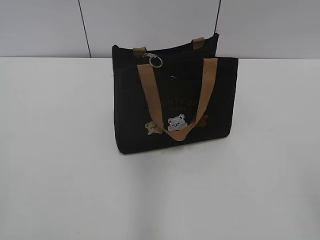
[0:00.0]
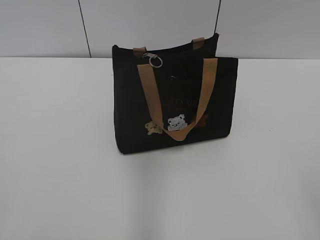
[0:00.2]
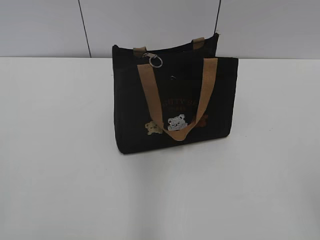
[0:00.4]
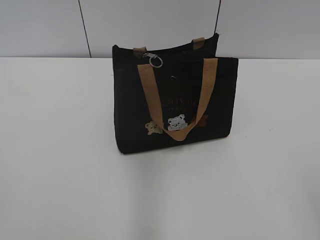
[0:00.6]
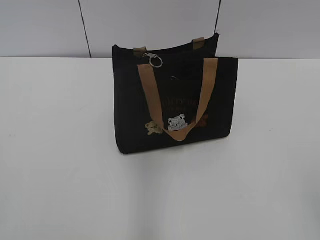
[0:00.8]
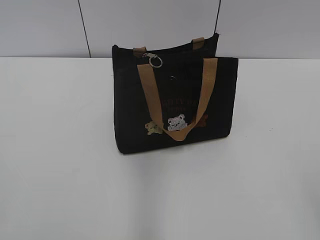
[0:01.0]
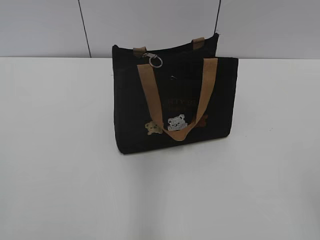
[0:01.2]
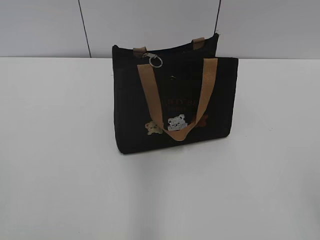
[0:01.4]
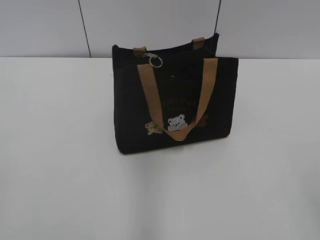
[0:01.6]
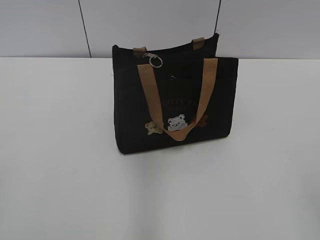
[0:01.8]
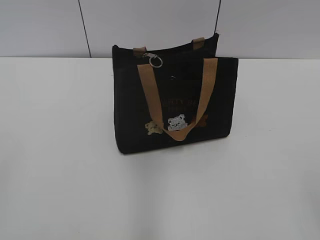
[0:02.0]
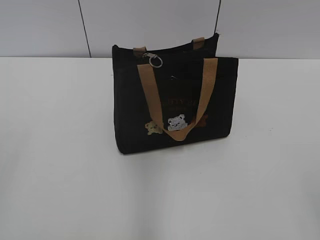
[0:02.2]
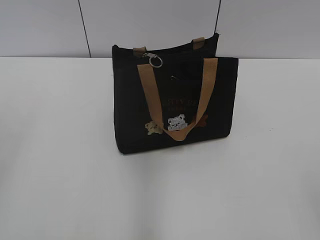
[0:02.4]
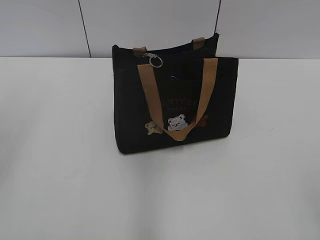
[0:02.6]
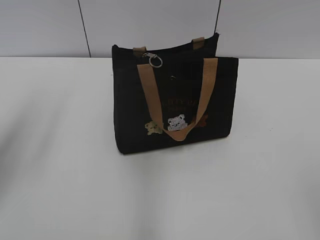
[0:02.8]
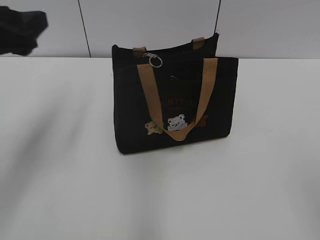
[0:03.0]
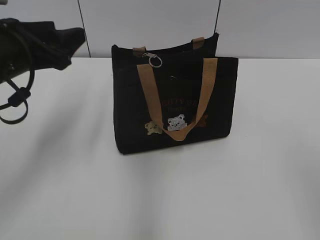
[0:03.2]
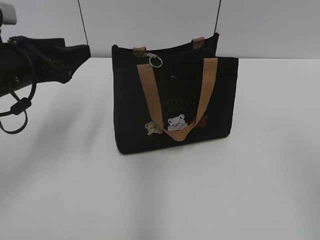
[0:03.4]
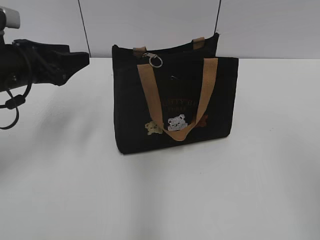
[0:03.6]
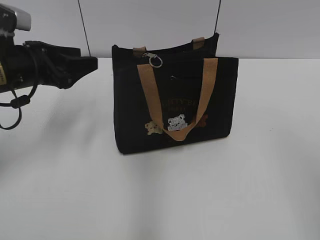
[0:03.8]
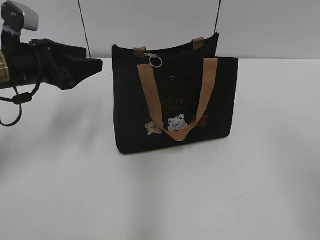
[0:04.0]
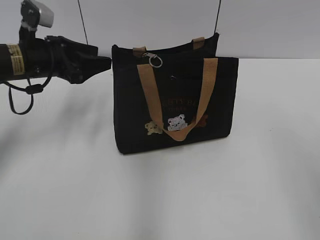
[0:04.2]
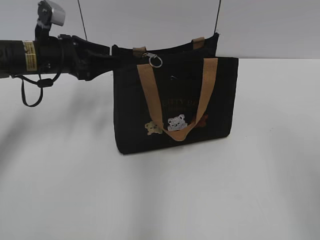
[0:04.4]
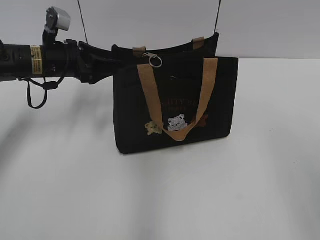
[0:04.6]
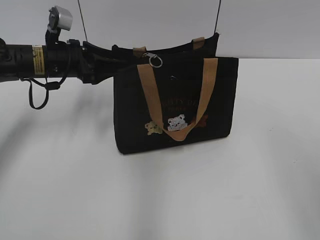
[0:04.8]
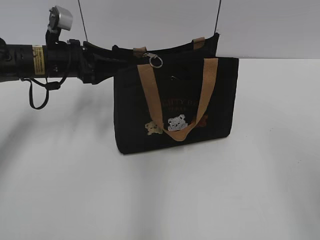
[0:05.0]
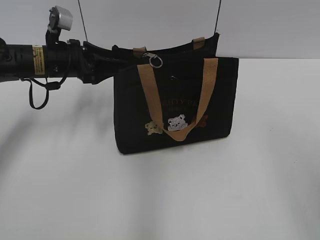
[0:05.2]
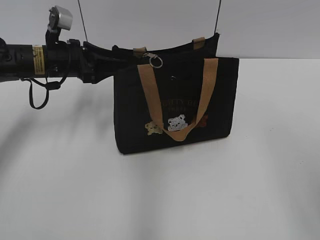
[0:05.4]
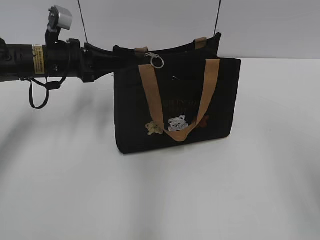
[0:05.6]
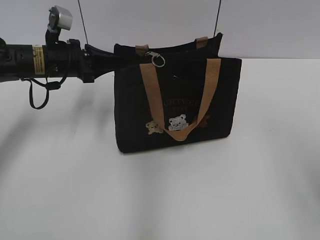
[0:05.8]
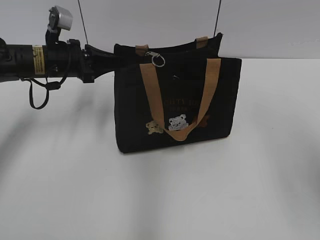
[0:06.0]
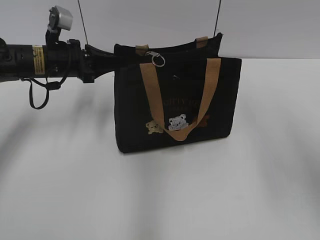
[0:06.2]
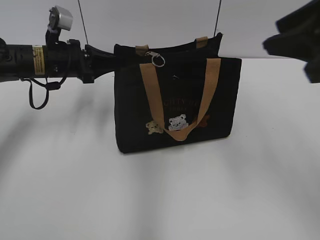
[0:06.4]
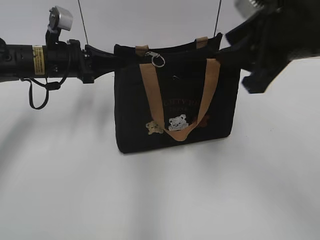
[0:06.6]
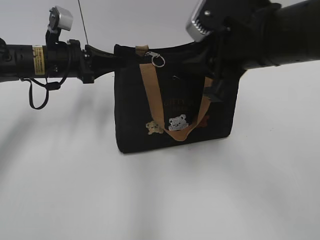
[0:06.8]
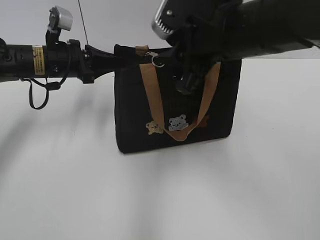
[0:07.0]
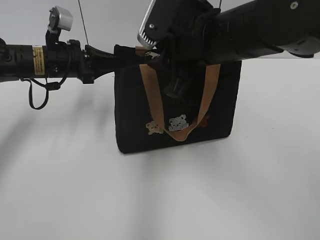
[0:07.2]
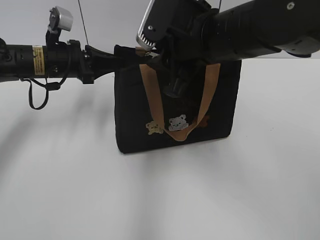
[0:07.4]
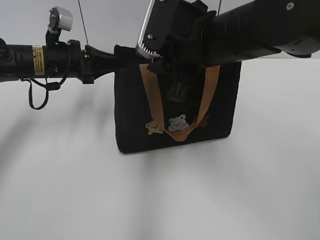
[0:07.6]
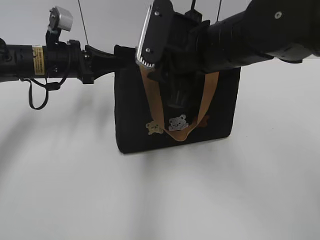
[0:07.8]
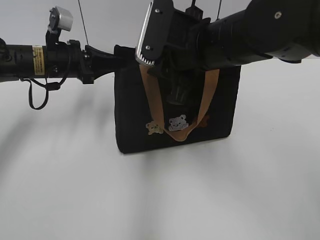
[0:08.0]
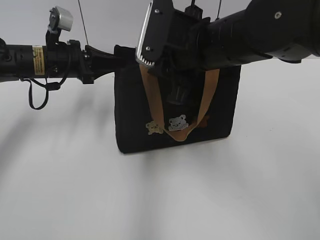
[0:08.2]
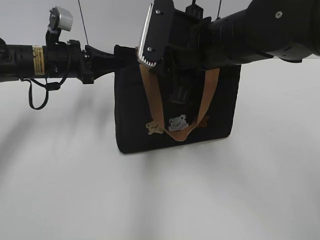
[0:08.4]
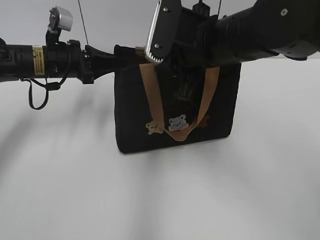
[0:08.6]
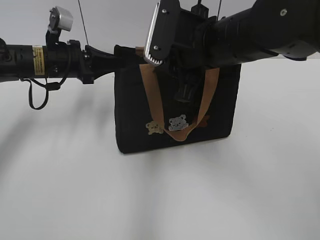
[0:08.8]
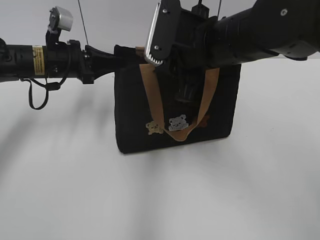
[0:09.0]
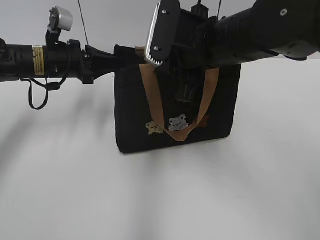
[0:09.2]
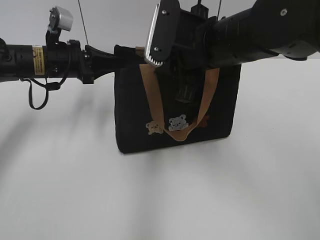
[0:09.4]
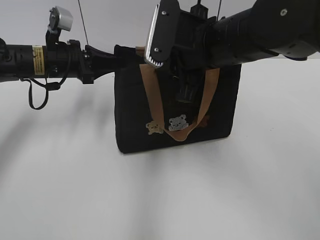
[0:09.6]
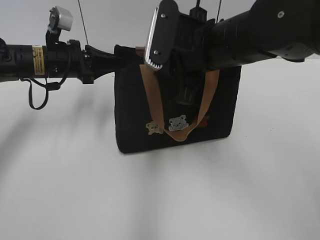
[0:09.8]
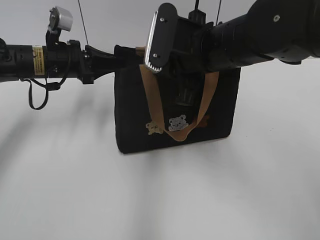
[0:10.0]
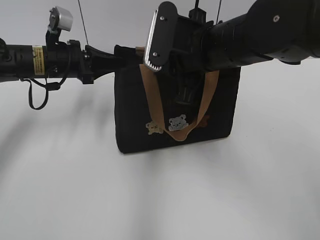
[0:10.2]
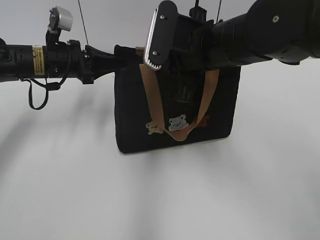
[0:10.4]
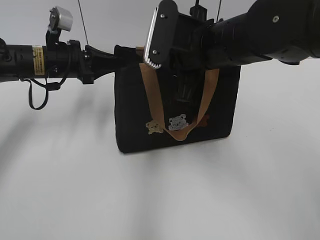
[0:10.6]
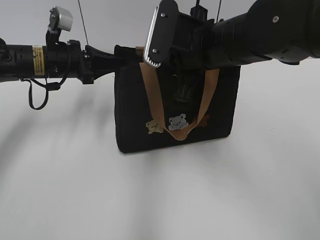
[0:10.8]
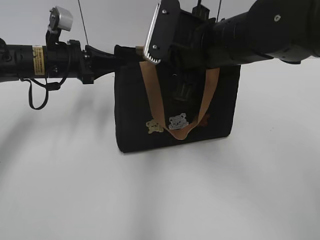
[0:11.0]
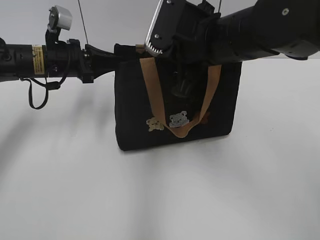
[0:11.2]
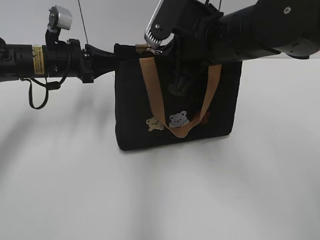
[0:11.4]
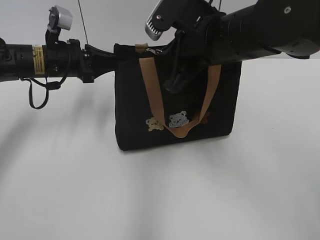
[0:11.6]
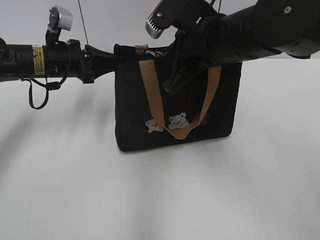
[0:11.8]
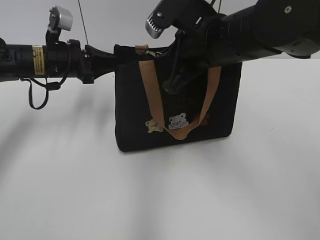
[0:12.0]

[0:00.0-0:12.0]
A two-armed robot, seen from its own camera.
0:01.6 to 0:03.0: The left gripper goes some 25 cm forward.
0:03.0 to 0:04.4: The left gripper is displaced forward and downward by about 15 cm.
0:04.4 to 0:06.0: The left gripper closes up. Meanwhile the right gripper shifts approximately 5 cm forward.
0:06.0 to 0:07.6: The right gripper travels to the left, forward and downward by approximately 25 cm.
0:07.6 to 0:09.0: The grippers make only small movements.
0:09.0 to 0:10.4: Both grippers stay about where they are.
0:10.4 to 0:12.0: The right gripper closes its fingers.

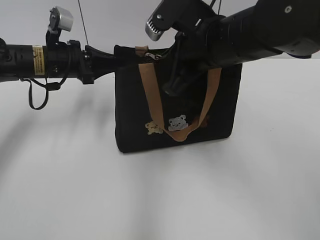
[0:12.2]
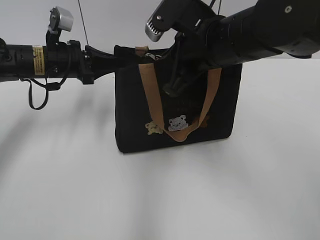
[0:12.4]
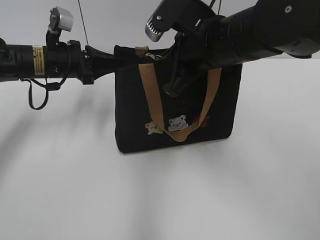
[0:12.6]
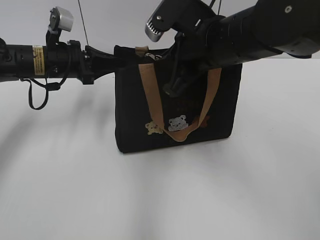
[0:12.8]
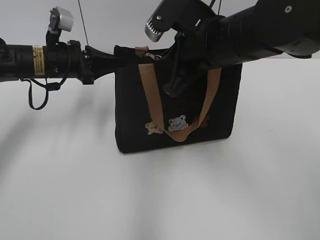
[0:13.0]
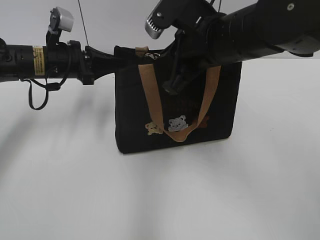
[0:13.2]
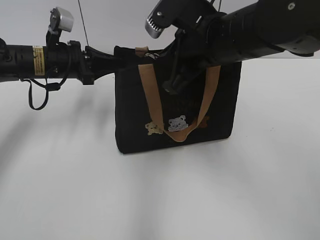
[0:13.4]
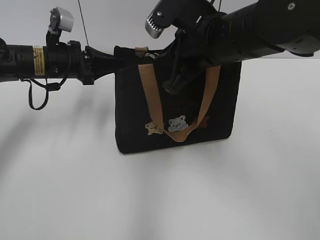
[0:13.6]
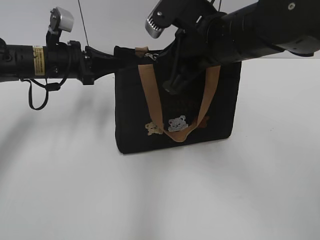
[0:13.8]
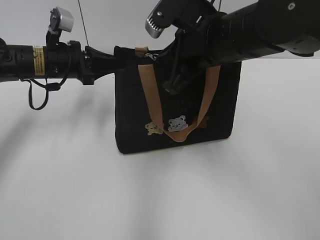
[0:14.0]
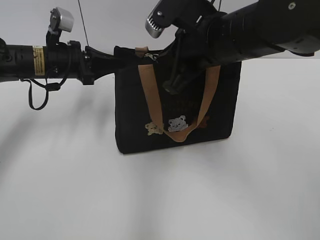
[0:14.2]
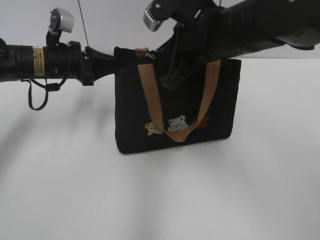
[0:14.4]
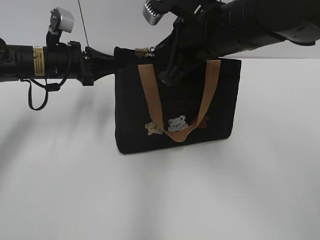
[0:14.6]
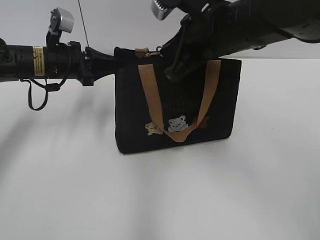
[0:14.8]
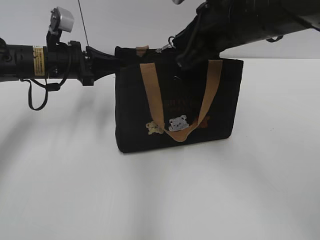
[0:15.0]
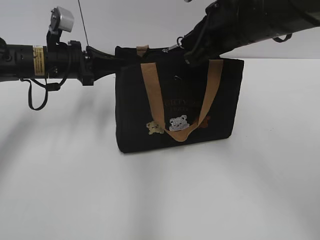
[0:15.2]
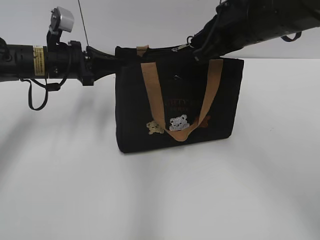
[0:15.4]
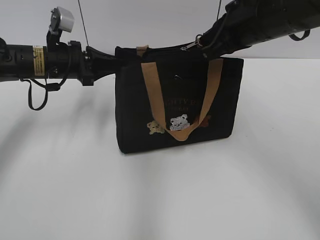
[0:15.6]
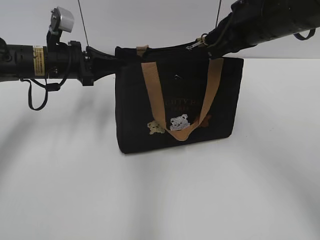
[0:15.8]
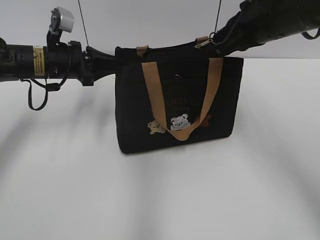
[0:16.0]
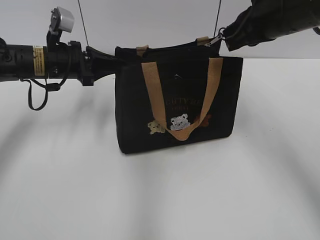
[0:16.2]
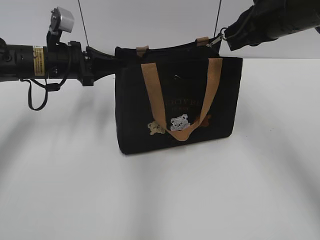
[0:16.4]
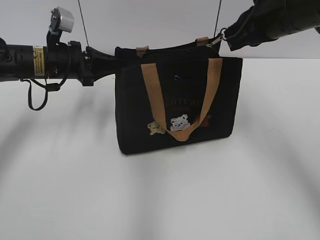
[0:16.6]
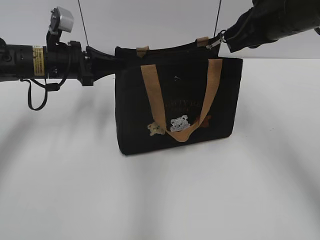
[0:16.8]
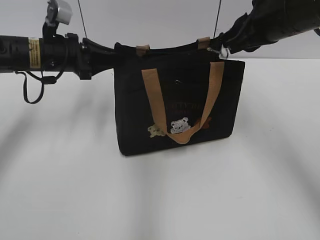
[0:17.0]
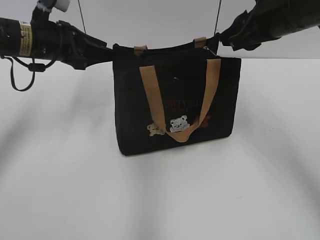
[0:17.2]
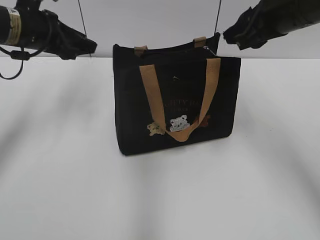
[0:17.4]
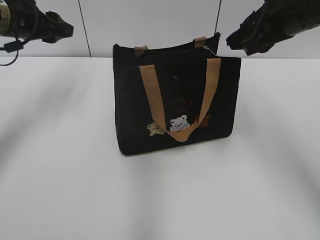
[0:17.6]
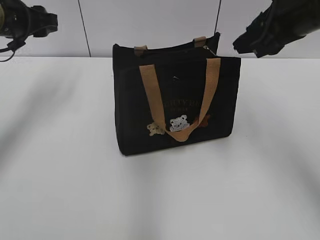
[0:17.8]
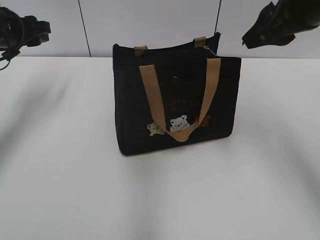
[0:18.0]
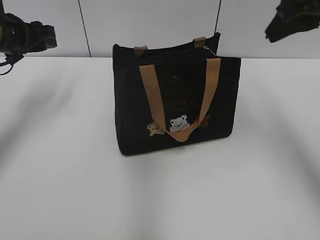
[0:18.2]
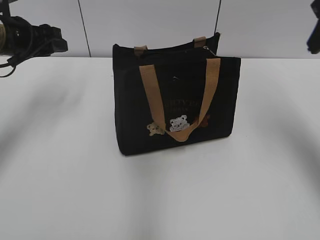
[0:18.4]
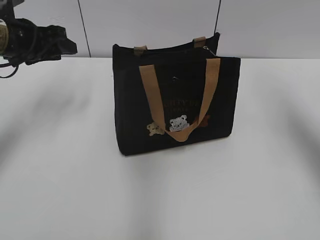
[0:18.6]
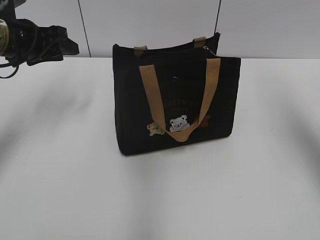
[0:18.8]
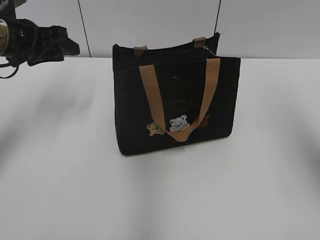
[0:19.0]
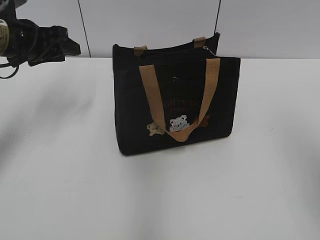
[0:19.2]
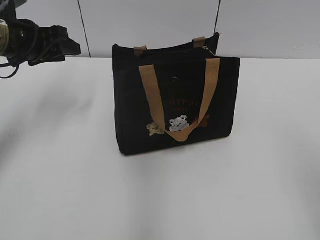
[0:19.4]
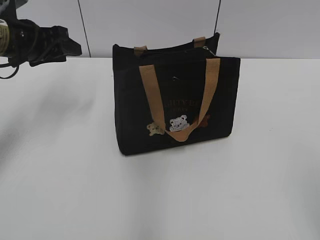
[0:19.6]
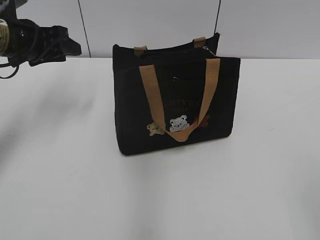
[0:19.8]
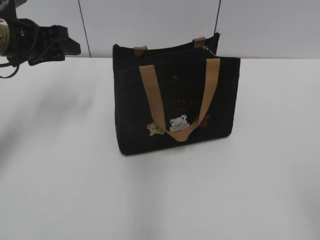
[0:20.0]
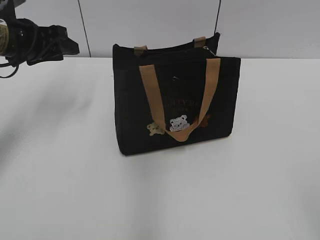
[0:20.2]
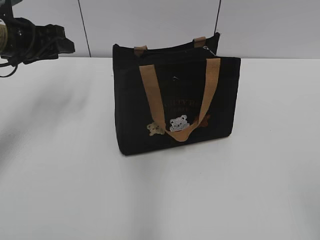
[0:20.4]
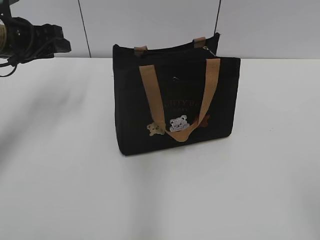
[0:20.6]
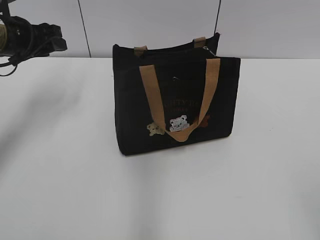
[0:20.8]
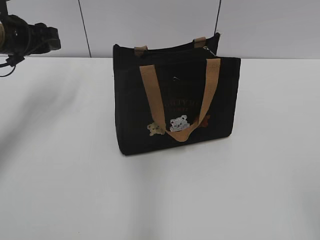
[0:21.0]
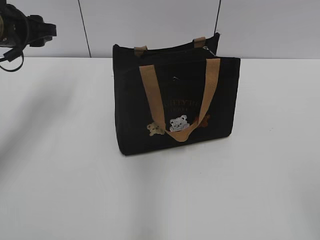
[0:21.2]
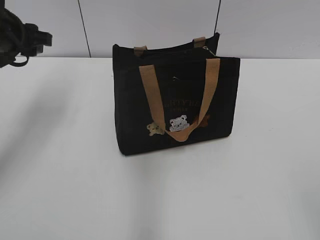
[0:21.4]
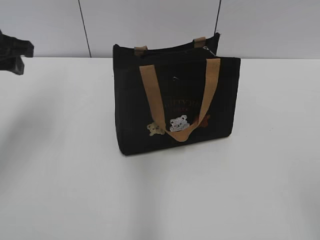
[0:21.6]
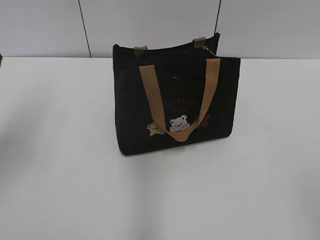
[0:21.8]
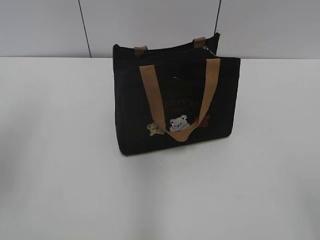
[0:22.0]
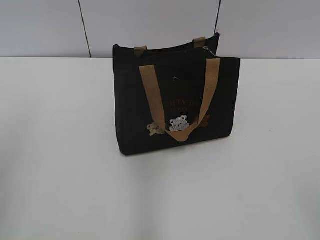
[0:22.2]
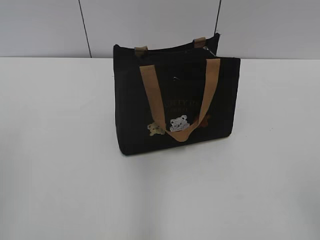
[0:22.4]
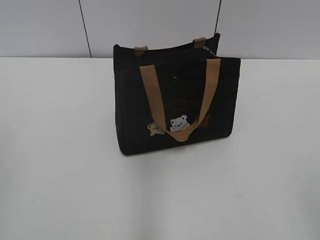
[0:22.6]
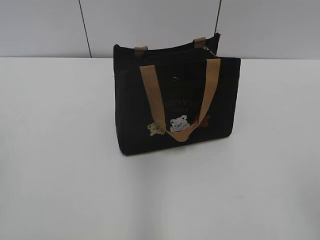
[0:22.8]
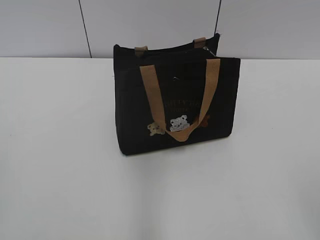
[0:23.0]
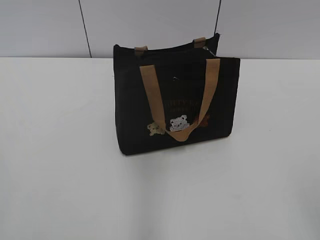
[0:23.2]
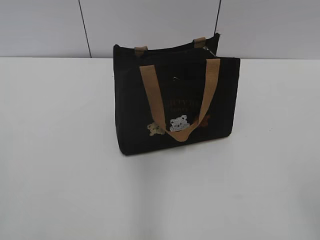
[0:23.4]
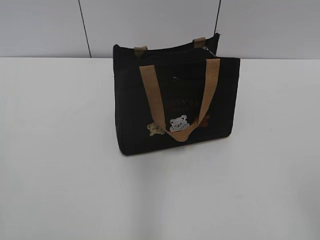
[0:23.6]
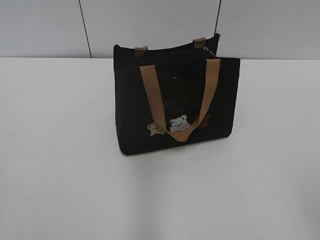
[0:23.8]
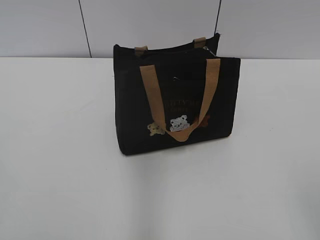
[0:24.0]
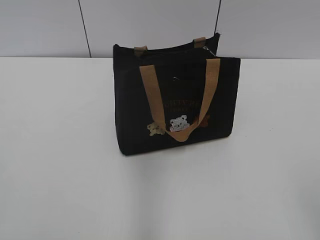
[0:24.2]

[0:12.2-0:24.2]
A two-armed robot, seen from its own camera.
Step, 0:12.2 to 0:17.0: Zip up the bag with your right hand.
0:12.2 to 0:13.8: The two grippers keep their place.
0:13.8 to 0:15.2: There are only small adjustments of the grippers.
0:15.2 to 0:16.6: The right gripper goes some 5 cm to the right.
0:16.6 to 0:18.2: The right gripper goes approximately 5 cm upward, and opens its fingers; the left gripper shifts some 10 cm to the left and upward, and opens its fingers.
0:18.2 to 0:19.8: The right gripper shifts some 30 cm backward.
0:21.2 to 0:22.6: The left gripper shifts roughly 30 cm backward.
